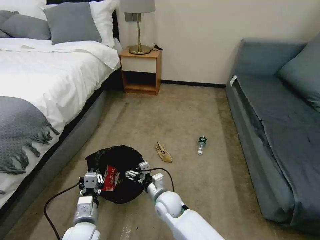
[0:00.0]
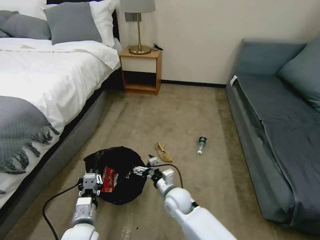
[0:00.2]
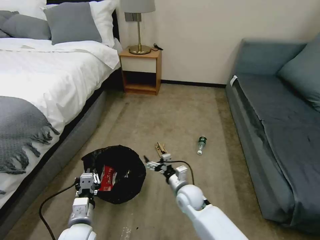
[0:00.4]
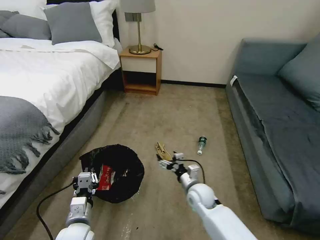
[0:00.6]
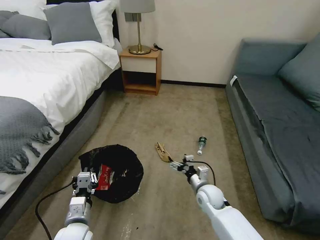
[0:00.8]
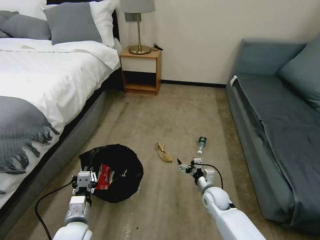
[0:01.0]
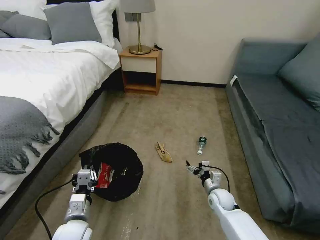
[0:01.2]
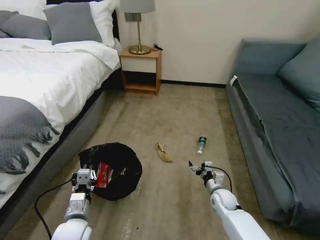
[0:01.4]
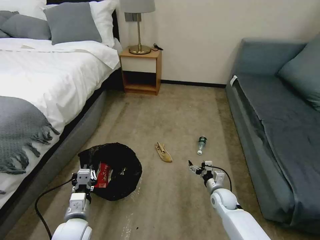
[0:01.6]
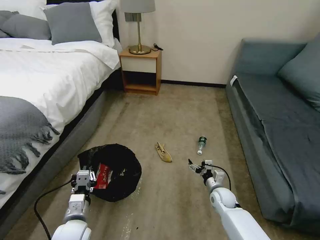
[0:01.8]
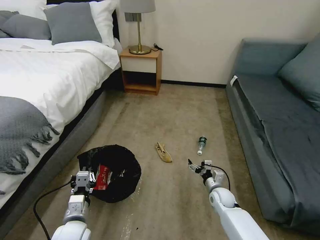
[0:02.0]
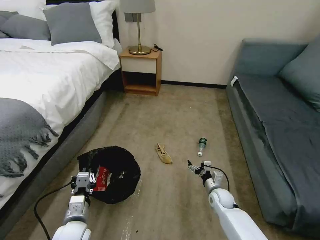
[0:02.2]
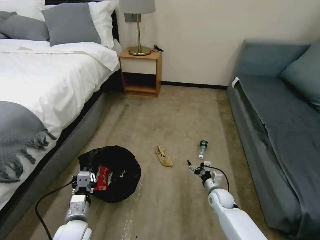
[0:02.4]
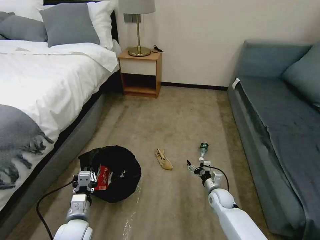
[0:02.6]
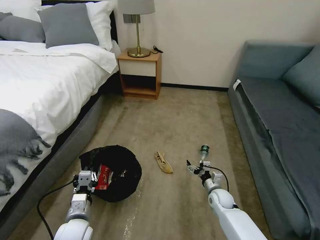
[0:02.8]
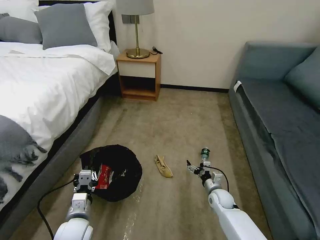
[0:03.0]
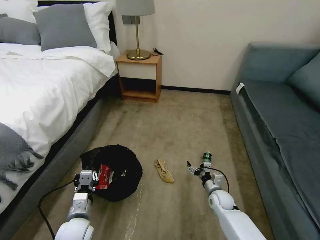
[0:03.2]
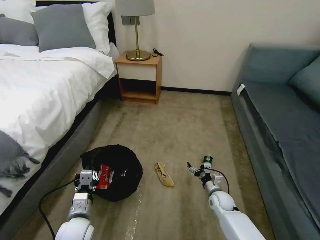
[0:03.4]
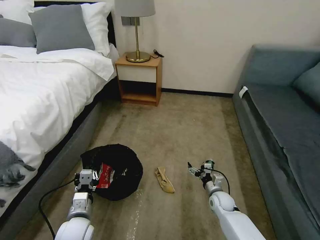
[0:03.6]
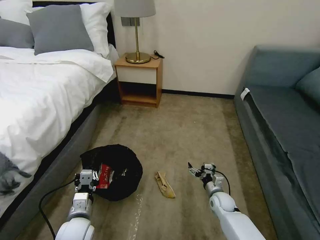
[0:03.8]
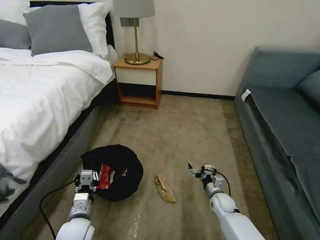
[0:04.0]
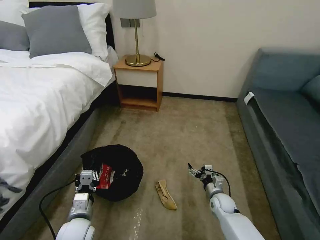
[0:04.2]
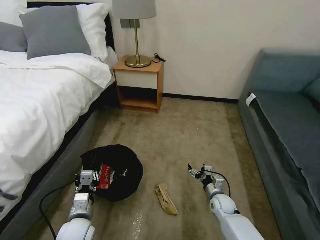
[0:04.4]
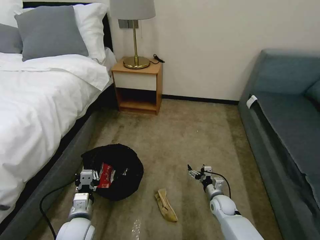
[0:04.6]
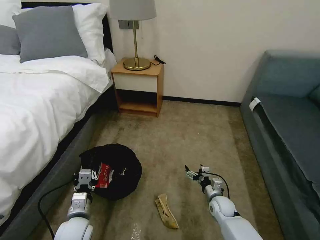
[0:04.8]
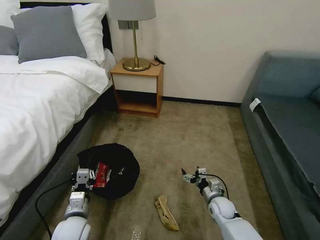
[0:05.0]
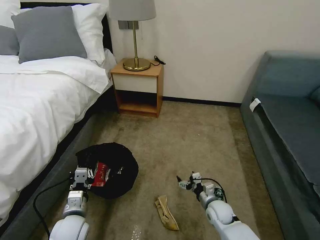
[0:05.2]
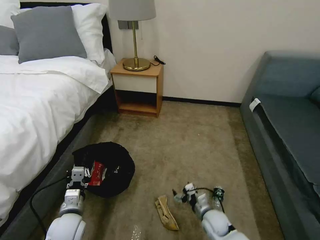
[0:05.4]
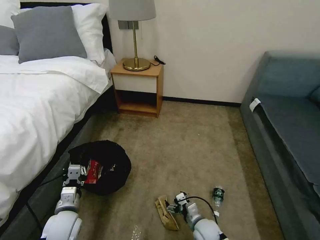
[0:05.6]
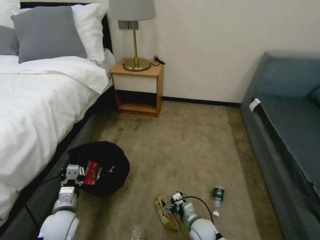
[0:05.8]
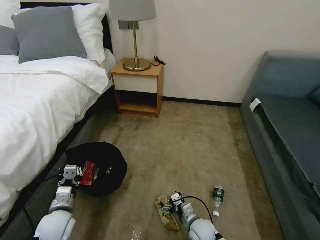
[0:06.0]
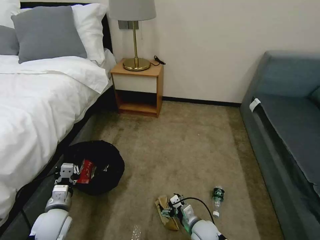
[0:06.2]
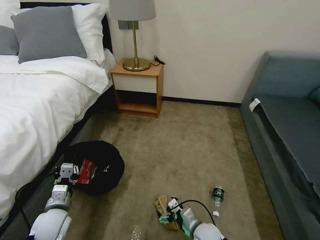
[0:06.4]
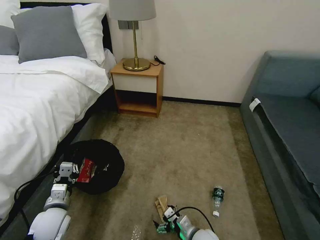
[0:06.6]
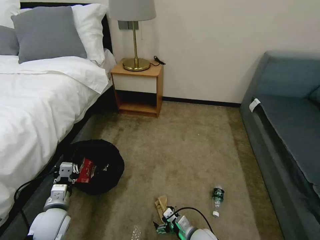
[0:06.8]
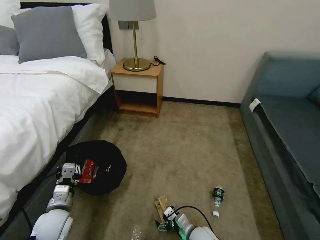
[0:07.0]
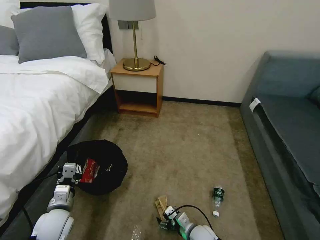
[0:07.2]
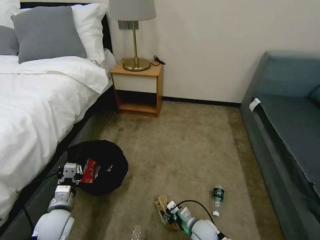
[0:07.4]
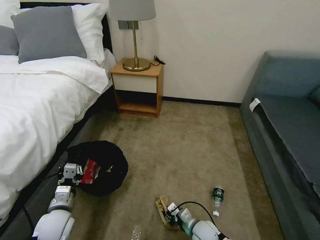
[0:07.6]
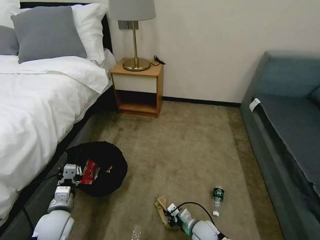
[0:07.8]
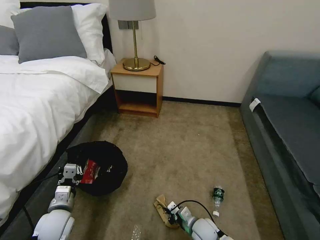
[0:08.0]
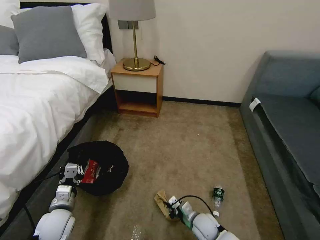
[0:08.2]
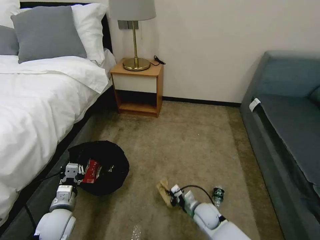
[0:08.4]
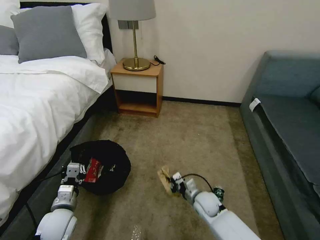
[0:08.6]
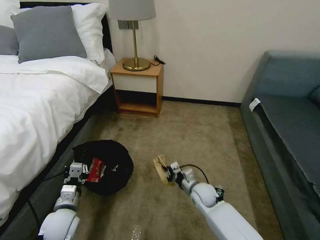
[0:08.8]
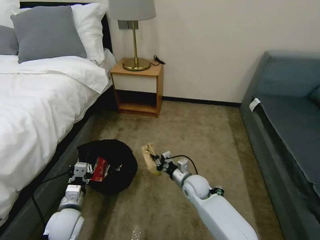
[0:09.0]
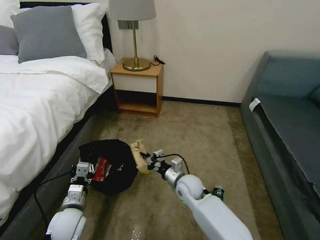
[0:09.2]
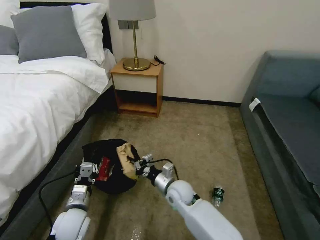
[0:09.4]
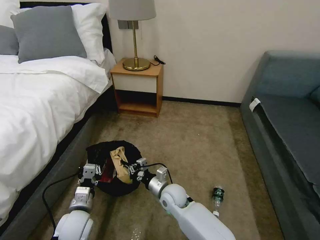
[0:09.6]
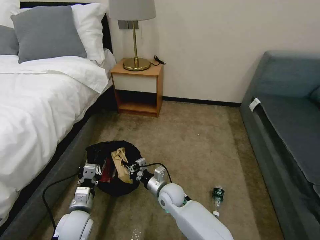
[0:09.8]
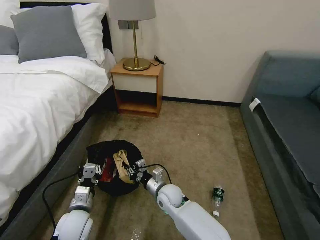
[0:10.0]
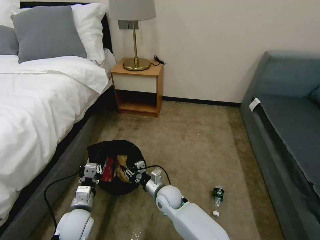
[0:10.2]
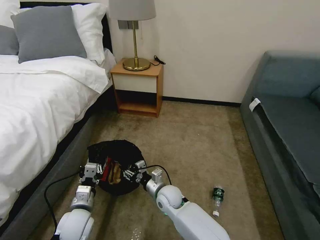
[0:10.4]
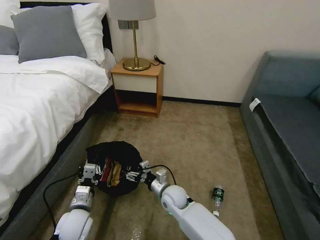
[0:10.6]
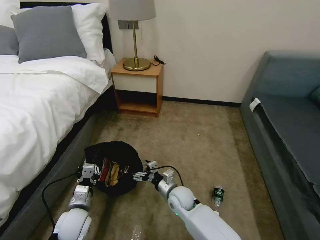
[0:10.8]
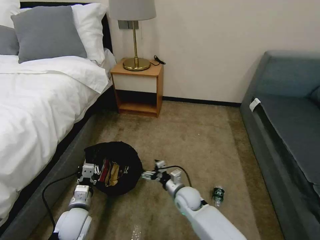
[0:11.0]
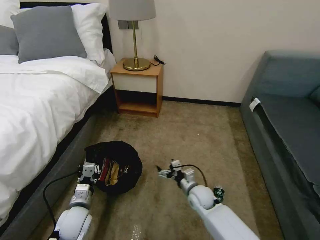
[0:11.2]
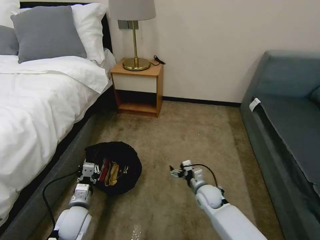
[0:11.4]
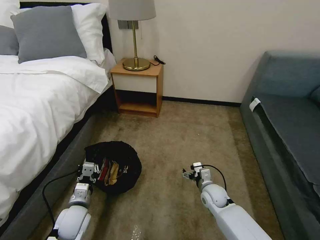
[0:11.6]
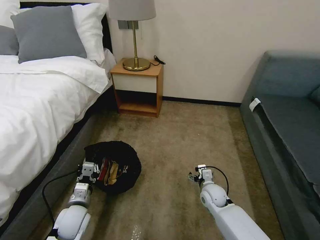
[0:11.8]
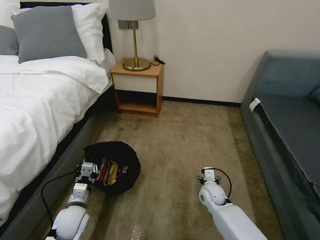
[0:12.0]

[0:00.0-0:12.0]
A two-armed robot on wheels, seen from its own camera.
Task of the whole recording: Pick up the trash bin, then pick up the garbage on the floor and place it into the trash bin.
0:00.0 to 0:01.6: The right gripper heads to the right, covering approximately 25 cm.
0:01.6 to 0:03.0: The grippers stay close to where they were, moving slightly.
0:04.4 to 0:06.0: The right gripper moves to the left and backward, approximately 15 cm; the left gripper shifts about 5 cm to the left.
0:06.0 to 0:07.6: The right gripper closes.
0:07.6 to 0:09.0: The right gripper is displaced forward and upward by approximately 20 cm.
0:09.0 to 0:10.4: The right gripper is displaced to the left by some 10 cm, and opens up.
0:10.4 to 0:12.0: The right gripper heads to the right, covering approximately 20 cm, and opens its fingers.

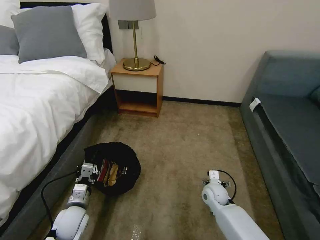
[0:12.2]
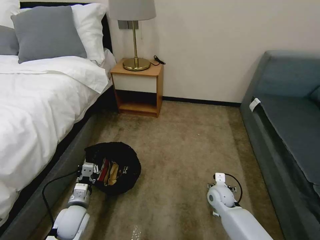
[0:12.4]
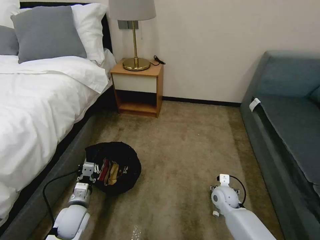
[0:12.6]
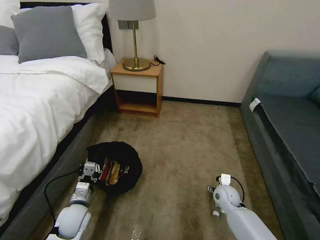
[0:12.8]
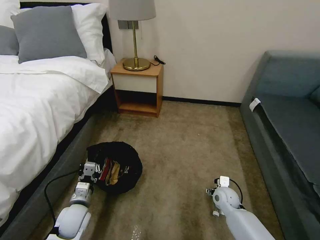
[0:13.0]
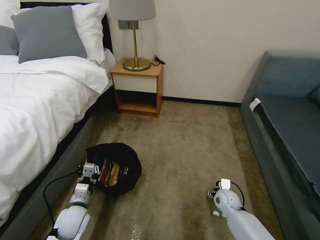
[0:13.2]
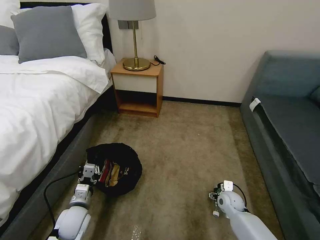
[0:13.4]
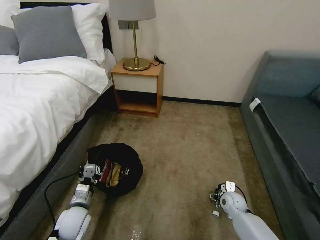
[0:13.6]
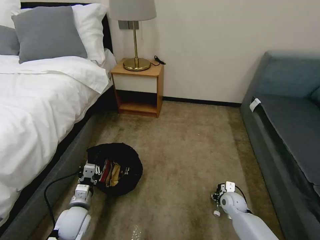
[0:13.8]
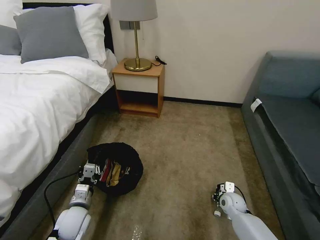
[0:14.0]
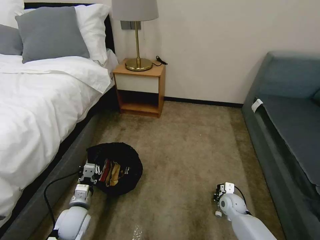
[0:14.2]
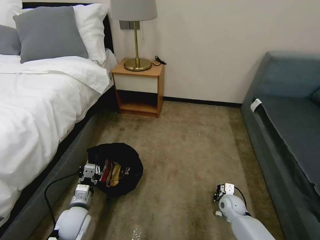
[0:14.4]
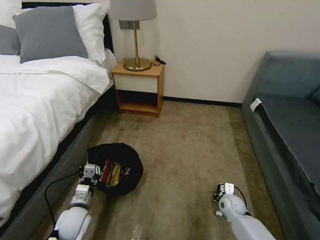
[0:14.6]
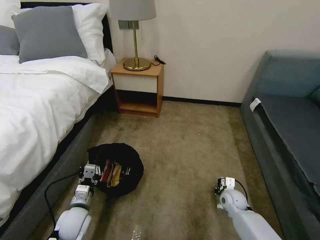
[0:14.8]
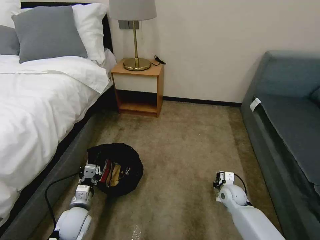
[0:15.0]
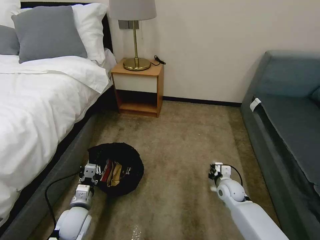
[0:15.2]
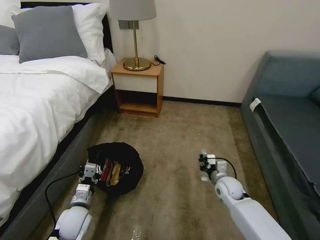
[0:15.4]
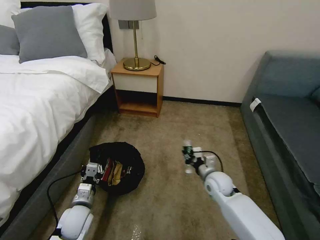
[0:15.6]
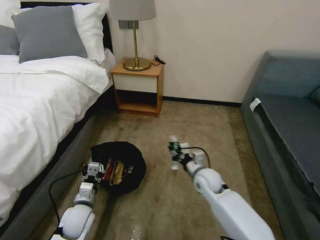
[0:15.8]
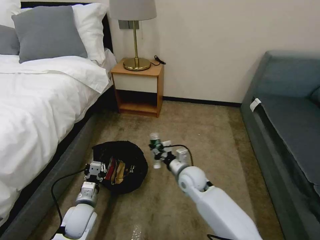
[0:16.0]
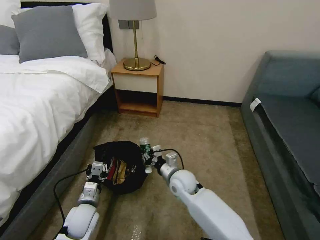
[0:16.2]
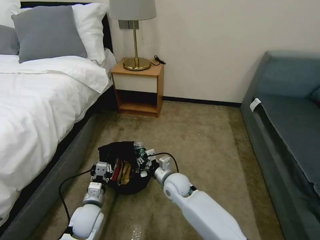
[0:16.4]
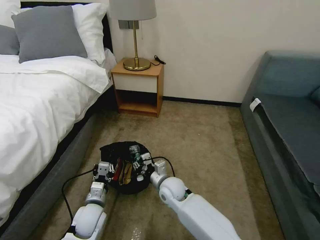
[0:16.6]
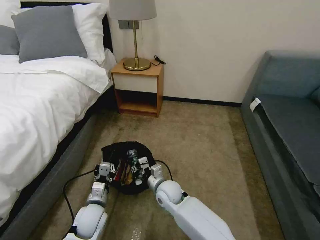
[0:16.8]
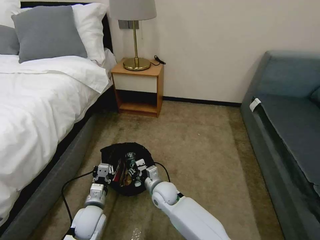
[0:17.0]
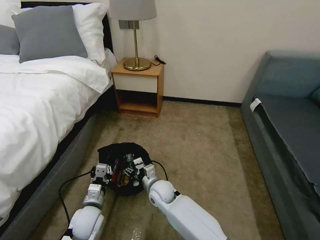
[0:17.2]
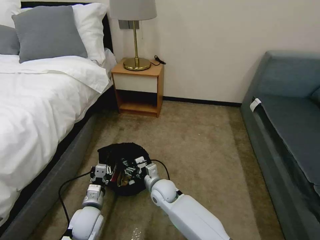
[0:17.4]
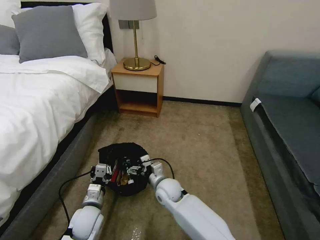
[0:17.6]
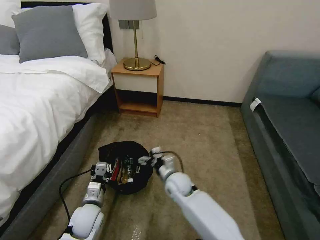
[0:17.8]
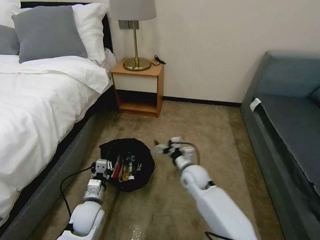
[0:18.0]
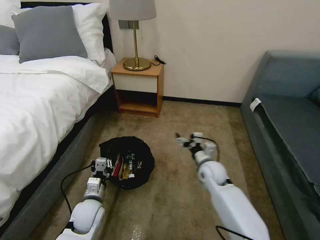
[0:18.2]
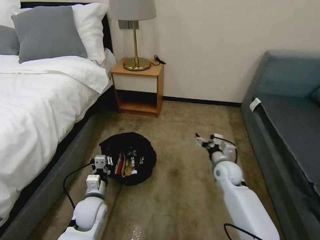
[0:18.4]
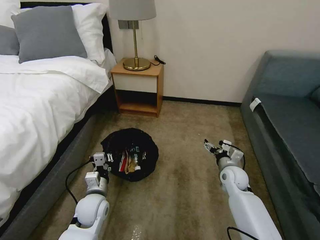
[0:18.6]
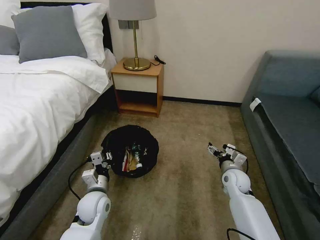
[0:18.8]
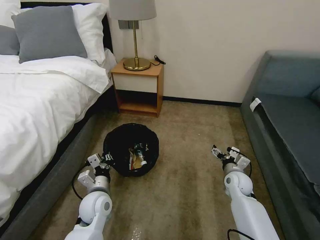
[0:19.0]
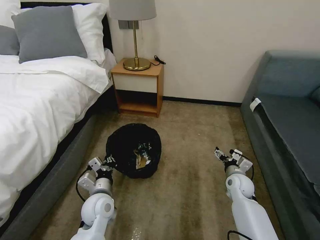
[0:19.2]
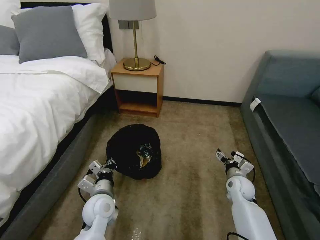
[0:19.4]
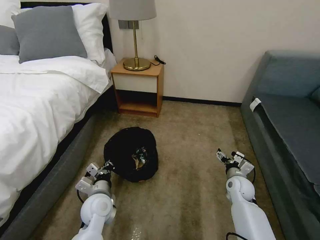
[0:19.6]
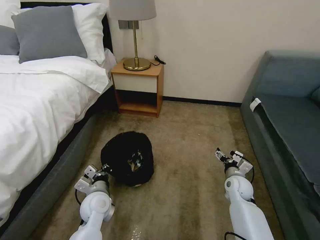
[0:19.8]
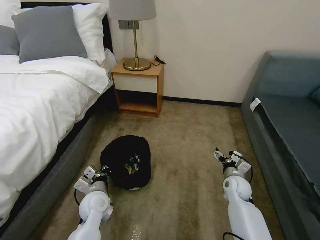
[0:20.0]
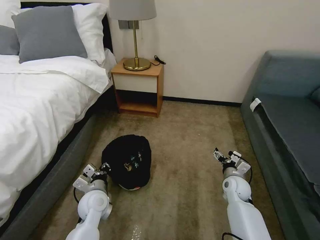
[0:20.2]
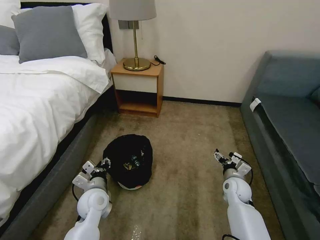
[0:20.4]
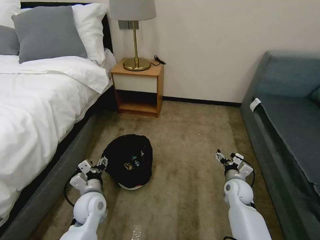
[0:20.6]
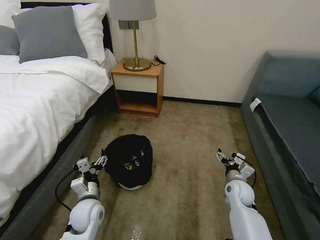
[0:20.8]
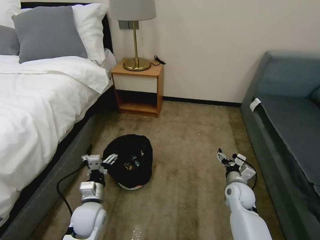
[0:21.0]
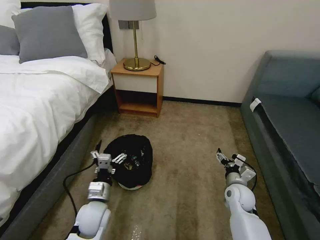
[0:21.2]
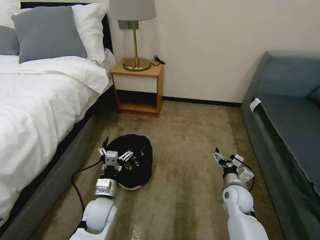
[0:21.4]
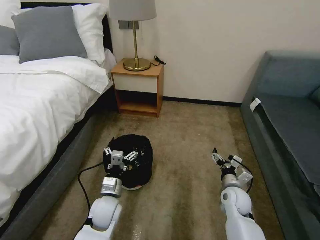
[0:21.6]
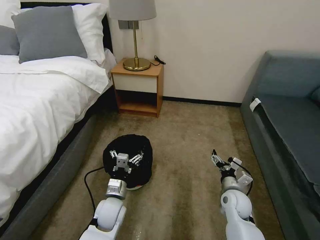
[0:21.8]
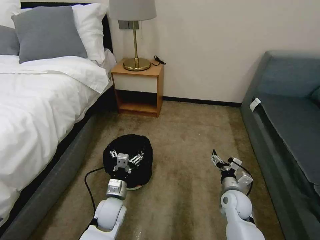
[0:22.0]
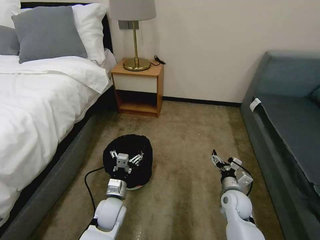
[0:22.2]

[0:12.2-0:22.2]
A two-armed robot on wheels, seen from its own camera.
Task of the whole recording: Pick up the trash bin, then pick up the garbage on the floor and place it into the trash bin.
0:12.2 to 0:13.6: The right gripper travels to the right by roughly 10 cm.
0:13.6 to 0:15.0: The right gripper closes its fingers.
0:15.0 to 0:16.4: The right gripper heads to the left, covering some 25 cm.
0:16.4 to 0:18.0: The right gripper travels to the right by approximately 5 cm, and opens its fingers.
0:18.0 to 0:19.4: The left gripper ends up some 5 cm from where it was. Meanwhile the right gripper moves to the right, roughly 20 cm.
0:19.4 to 0:20.8: The left gripper opens its fingers.
0:20.8 to 0:22.2: The left gripper travels to the right by approximately 5 cm. The right gripper ends up some 5 cm from where it was.
